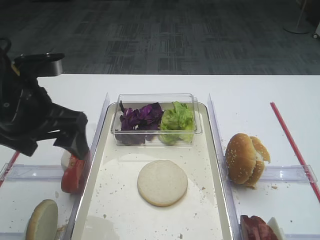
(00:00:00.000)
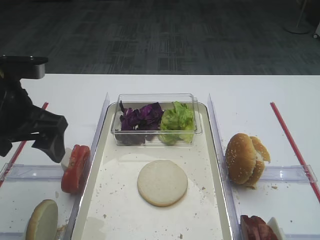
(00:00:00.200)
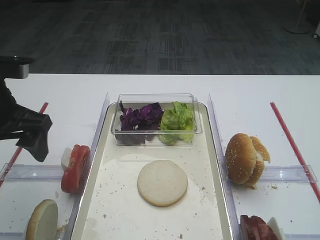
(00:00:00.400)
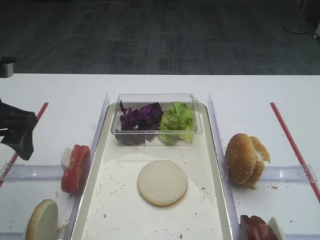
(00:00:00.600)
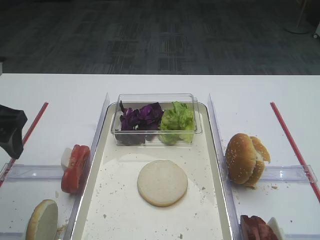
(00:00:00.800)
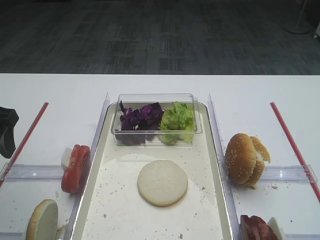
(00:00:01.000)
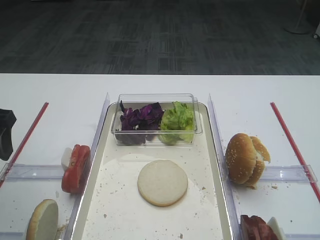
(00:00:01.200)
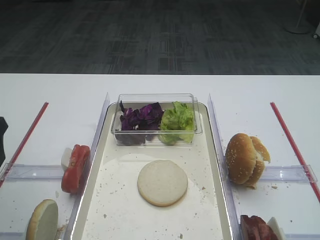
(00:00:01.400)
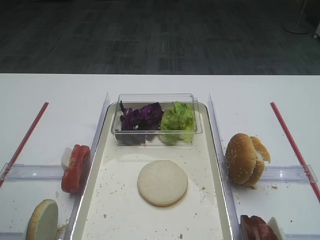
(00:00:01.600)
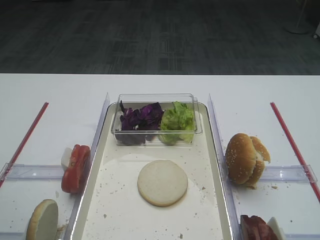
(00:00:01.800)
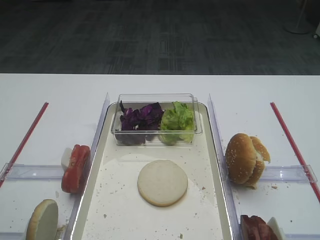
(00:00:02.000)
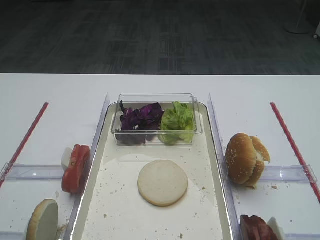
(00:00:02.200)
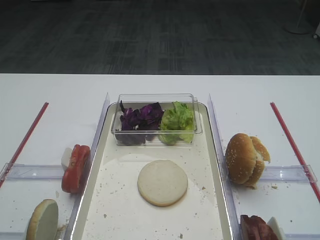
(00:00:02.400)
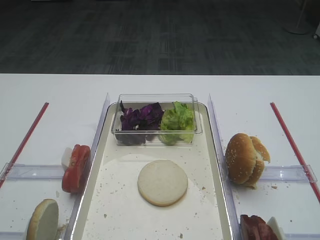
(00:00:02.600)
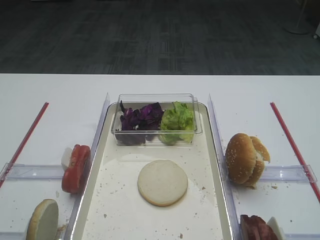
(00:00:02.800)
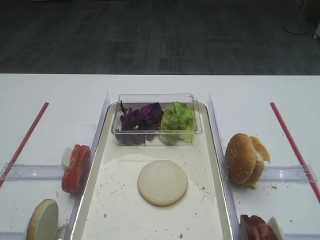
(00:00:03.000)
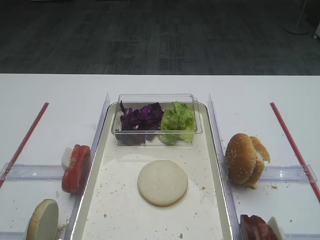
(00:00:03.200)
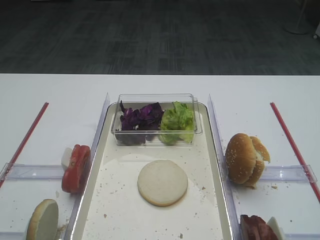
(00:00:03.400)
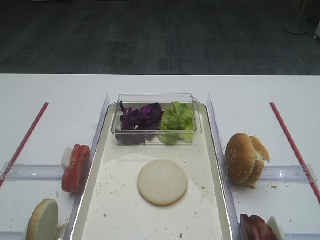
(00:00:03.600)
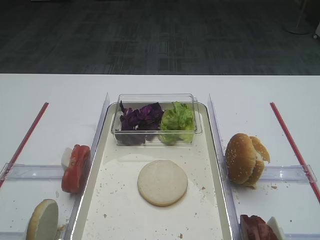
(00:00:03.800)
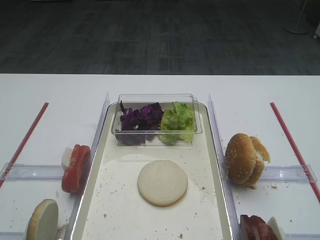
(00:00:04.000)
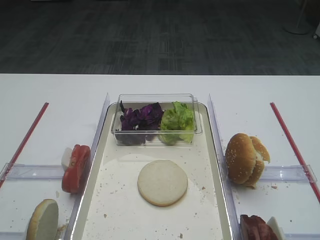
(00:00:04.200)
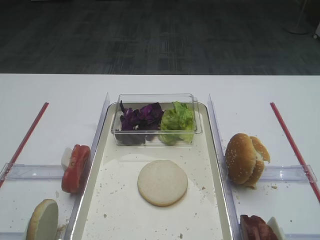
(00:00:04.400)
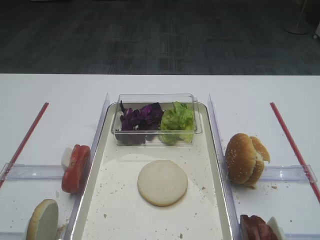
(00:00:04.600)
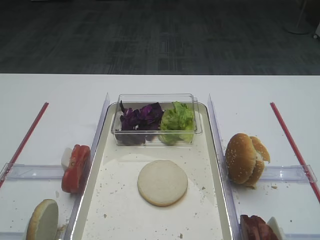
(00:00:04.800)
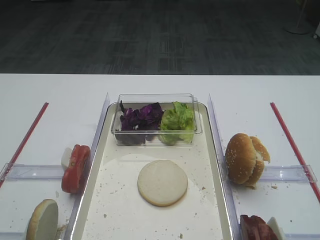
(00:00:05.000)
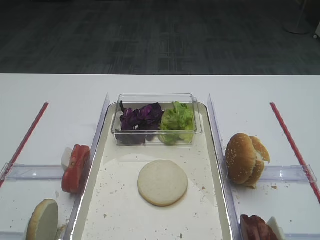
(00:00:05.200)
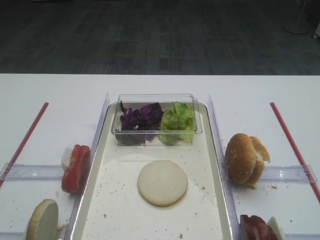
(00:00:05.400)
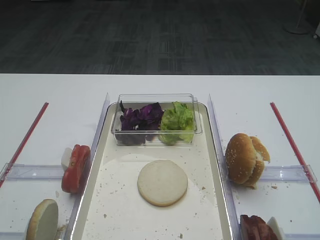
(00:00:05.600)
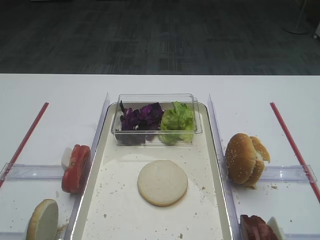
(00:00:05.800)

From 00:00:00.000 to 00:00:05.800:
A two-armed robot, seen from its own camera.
From 00:00:00.000 to 00:00:01.400: The left gripper is displaced to the left by roughly 10 cm.
From 00:00:04.400 to 00:00:05.800: Both grippers stay put.
